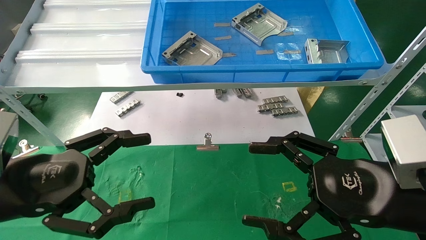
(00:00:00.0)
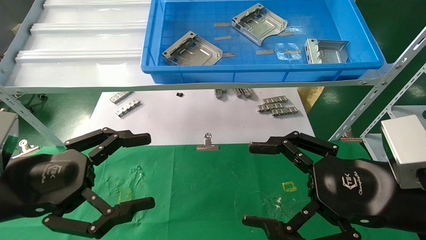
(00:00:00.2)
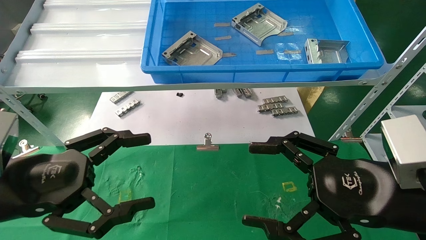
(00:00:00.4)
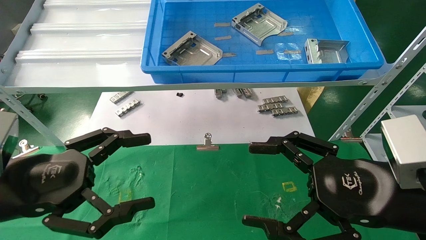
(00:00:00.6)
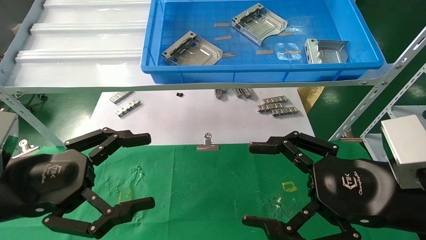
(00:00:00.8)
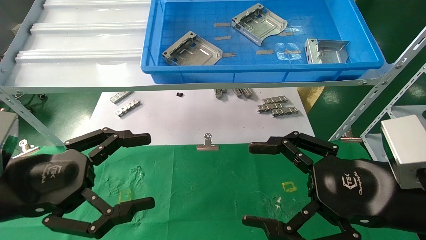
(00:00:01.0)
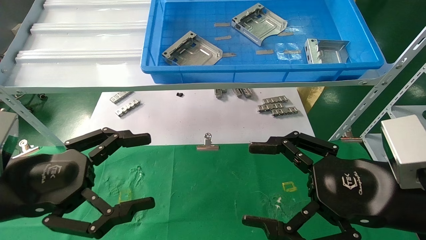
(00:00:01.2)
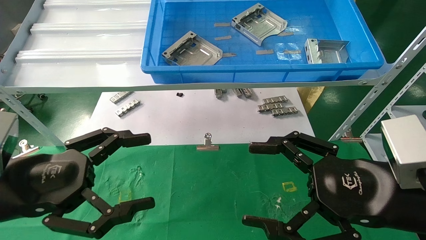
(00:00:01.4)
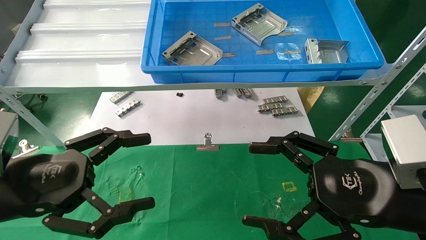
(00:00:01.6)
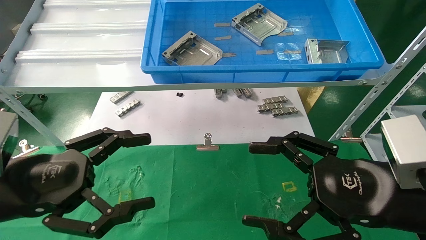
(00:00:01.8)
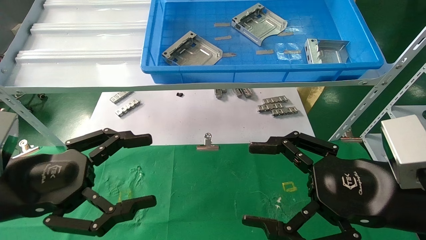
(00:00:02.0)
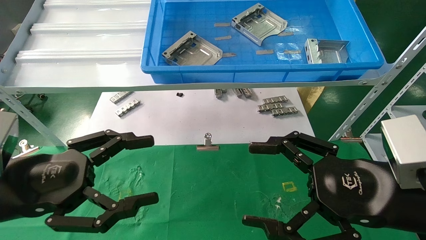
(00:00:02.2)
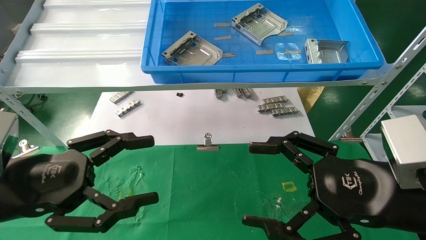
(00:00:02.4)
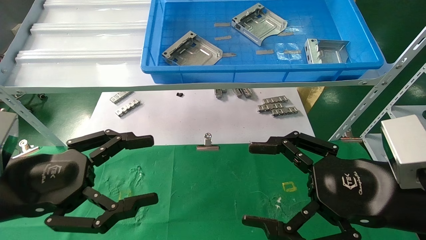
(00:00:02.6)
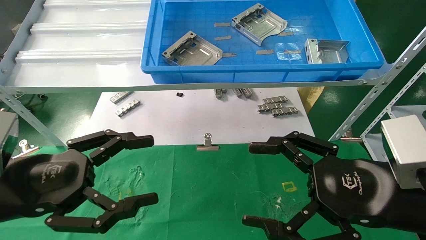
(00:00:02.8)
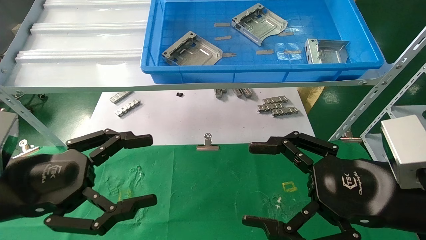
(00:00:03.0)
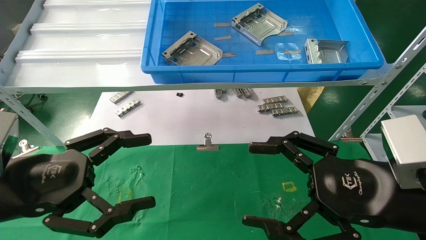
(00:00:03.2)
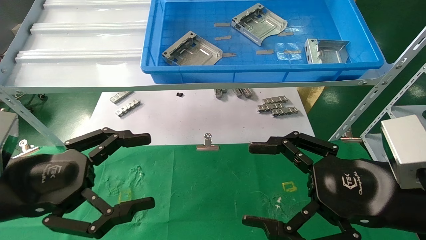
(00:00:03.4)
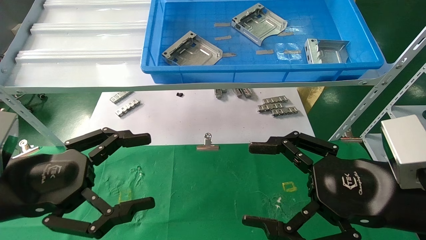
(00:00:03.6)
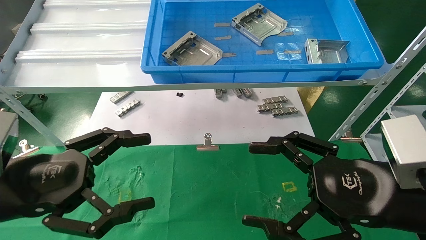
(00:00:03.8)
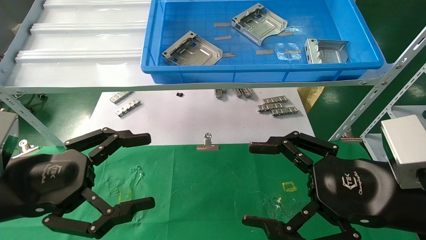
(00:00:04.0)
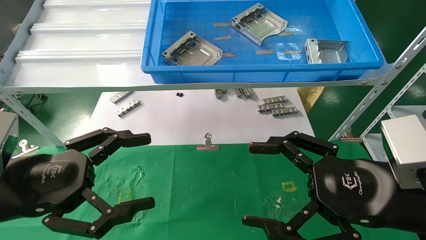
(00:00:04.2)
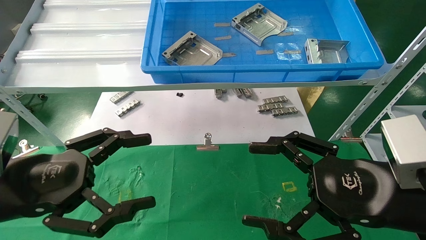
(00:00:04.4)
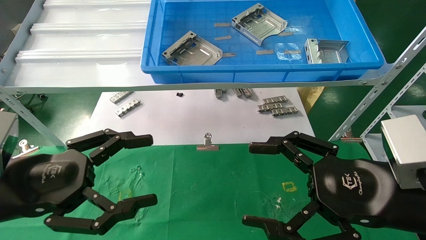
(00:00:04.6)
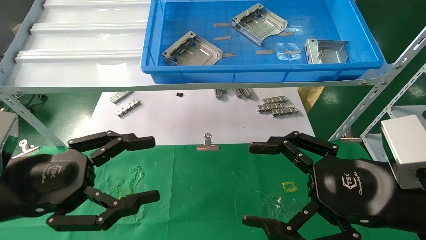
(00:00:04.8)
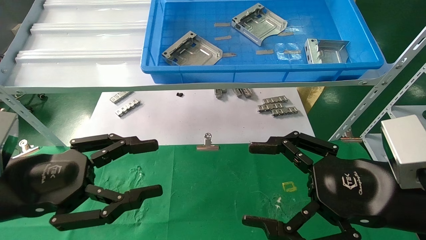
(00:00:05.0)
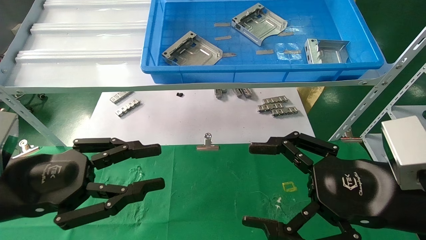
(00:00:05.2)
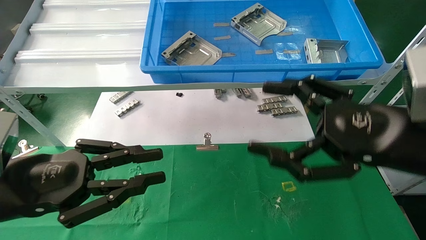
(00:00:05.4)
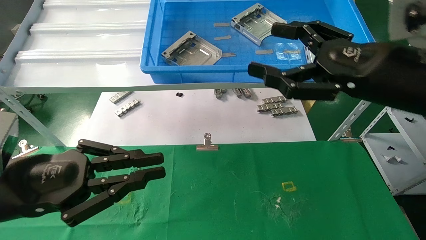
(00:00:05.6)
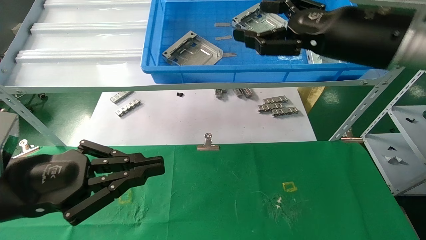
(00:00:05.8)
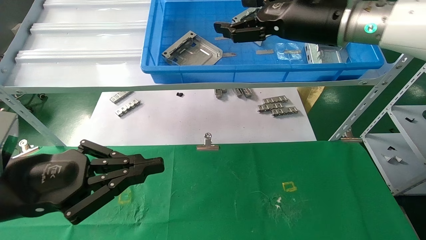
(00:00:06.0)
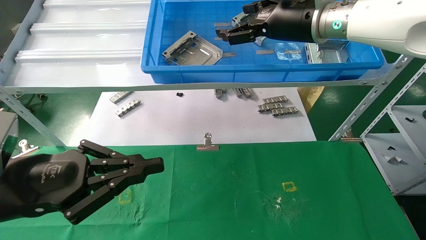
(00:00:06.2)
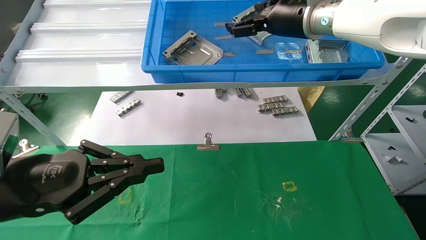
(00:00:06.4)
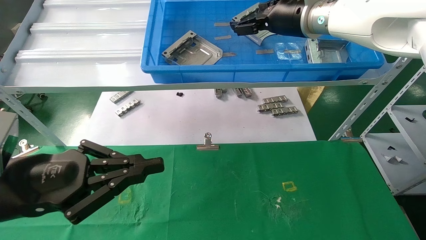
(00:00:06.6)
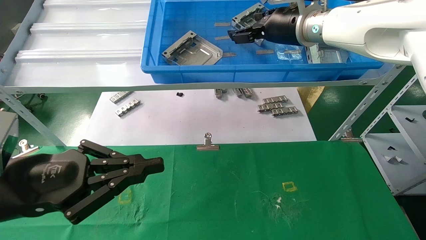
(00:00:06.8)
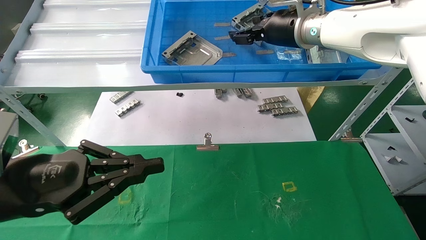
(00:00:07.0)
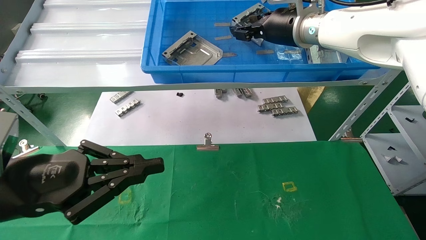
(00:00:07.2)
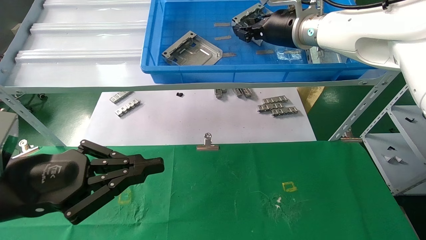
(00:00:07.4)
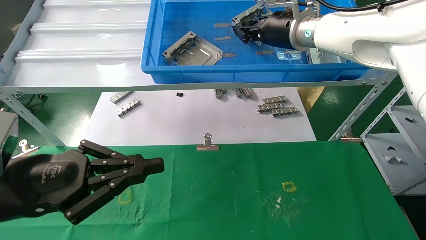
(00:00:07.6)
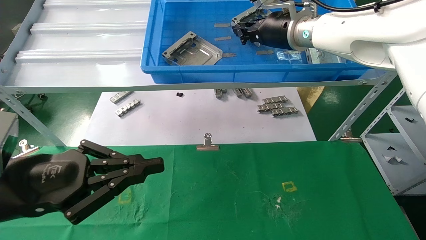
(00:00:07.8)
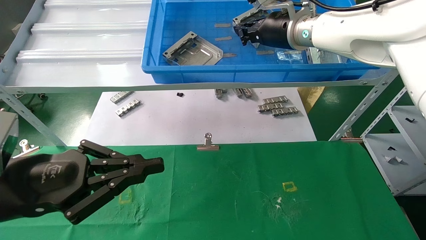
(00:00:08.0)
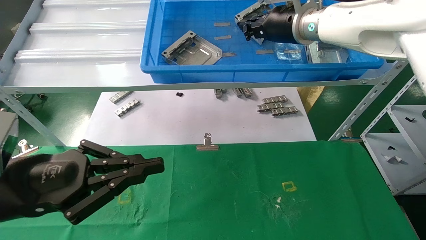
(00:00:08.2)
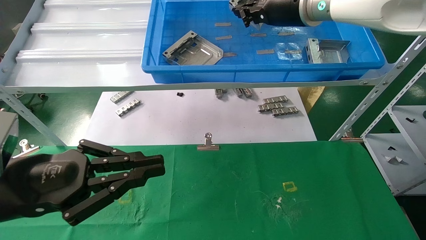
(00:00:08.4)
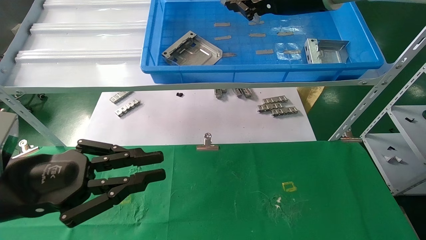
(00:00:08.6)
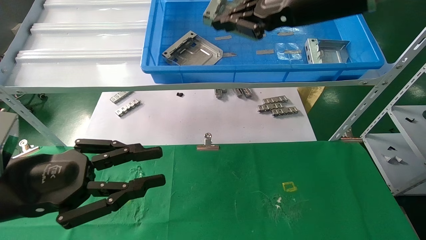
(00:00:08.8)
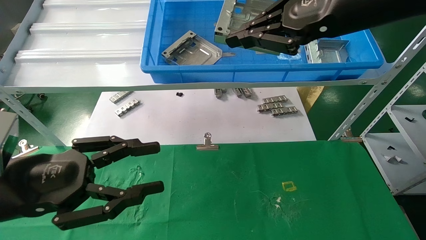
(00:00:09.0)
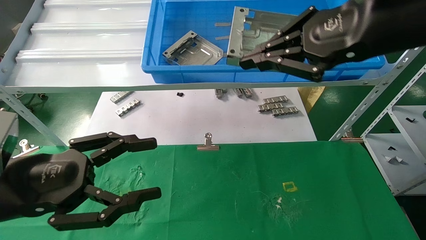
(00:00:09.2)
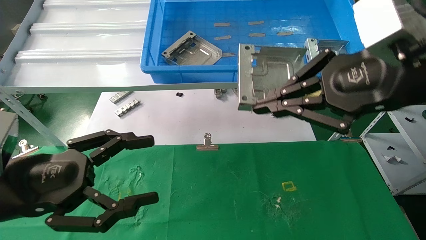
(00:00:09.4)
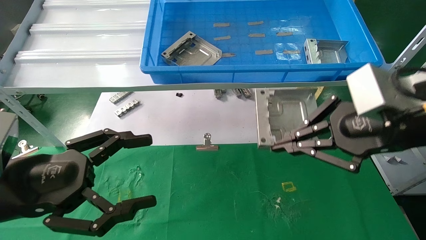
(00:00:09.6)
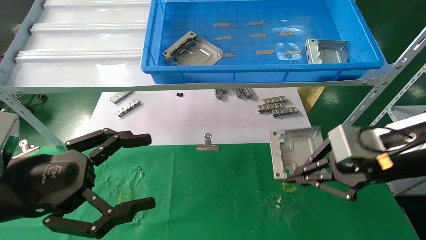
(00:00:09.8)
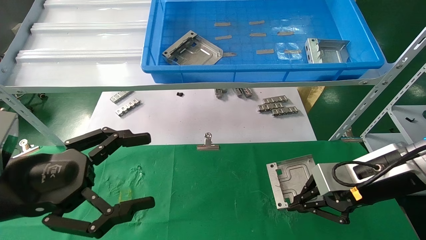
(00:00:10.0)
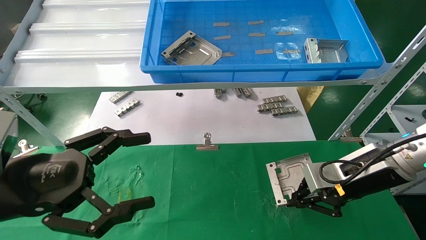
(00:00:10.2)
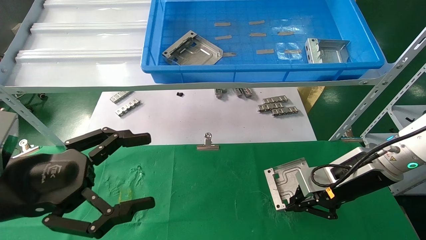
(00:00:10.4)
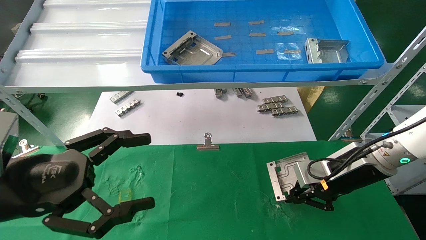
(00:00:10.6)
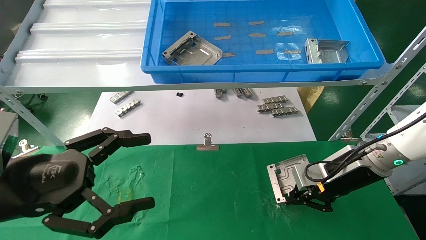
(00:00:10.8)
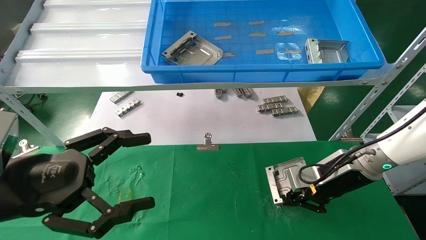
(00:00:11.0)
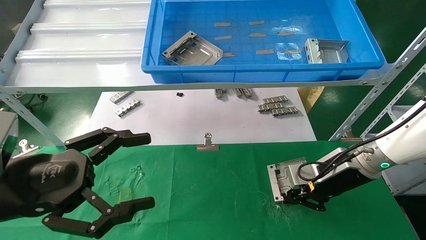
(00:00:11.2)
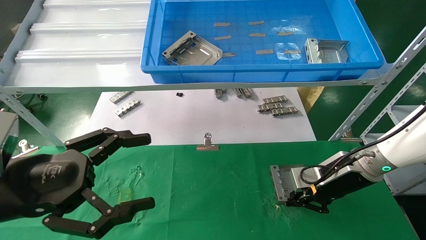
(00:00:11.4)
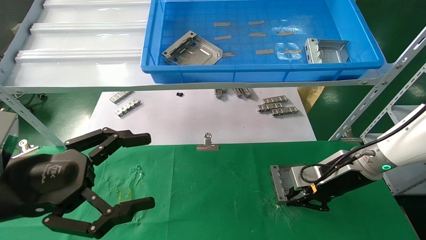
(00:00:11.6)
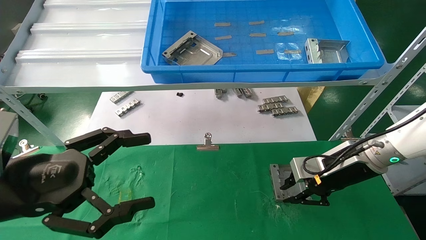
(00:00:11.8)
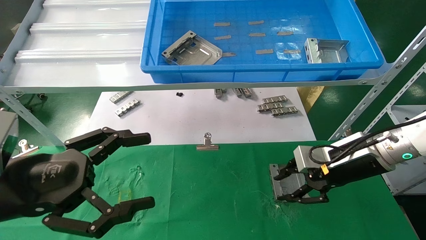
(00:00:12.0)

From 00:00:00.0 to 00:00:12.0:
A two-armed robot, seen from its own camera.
Task of the whole recording: use the mechanical arm to pick up the parts and place them on the table.
Step, from 00:00:05.4 to 00:00:08.0: Pick up the hard drive bracket from the feeding area.
Step, from 00:00:08.2 to 00:00:11.6: Place the hard drive bracket into the box.
From 00:00:00.0 to 00:00:04.4: Neither gripper changes place.
From 00:00:04.4 to 00:00:06.0: The left gripper closes its fingers; the right gripper heads upward and forward, covering approximately 25 cm.
From 00:00:06.0 to 00:00:07.6: The right gripper shifts some 10 cm forward, and closes its fingers.
From 00:00:07.6 to 00:00:09.0: The right gripper shifts approximately 20 cm backward, while the left gripper opens its fingers.
From 00:00:09.0 to 00:00:10.4: The left gripper opens, while the right gripper moves downward, roughly 25 cm.
From 00:00:10.4 to 00:00:12.0: The grippers make only small movements.

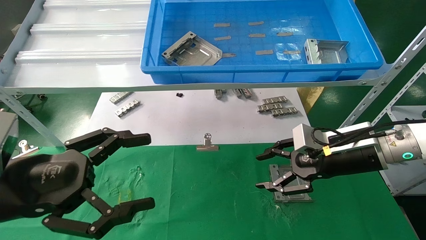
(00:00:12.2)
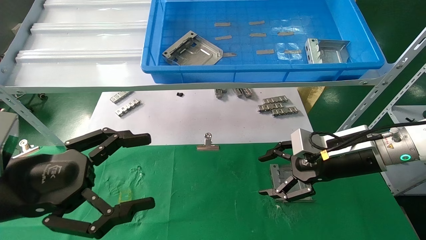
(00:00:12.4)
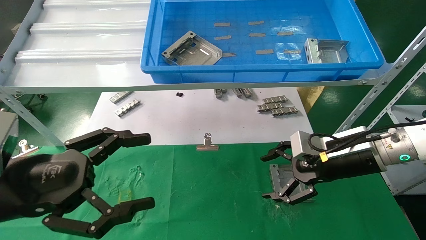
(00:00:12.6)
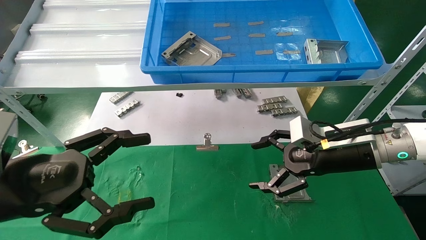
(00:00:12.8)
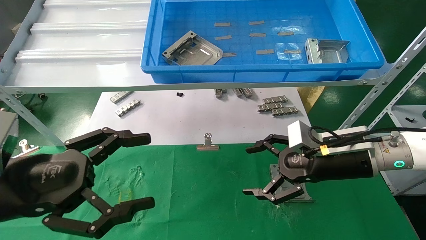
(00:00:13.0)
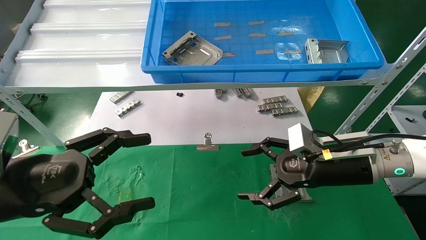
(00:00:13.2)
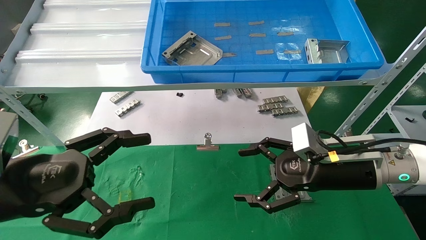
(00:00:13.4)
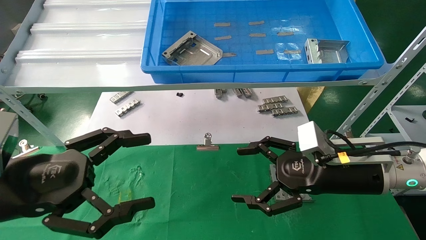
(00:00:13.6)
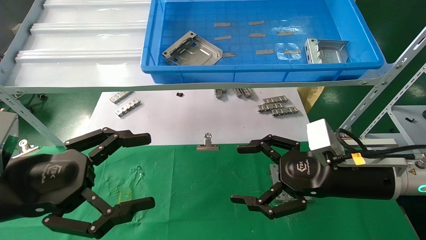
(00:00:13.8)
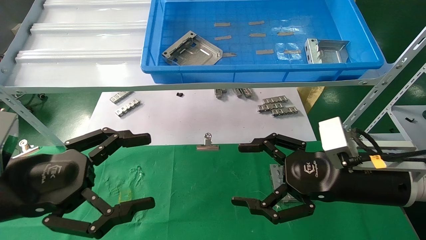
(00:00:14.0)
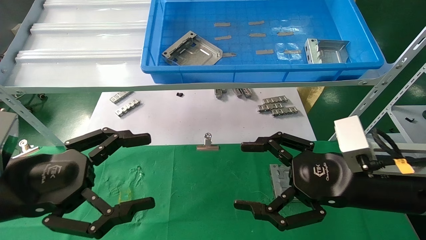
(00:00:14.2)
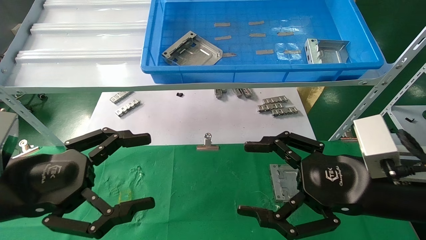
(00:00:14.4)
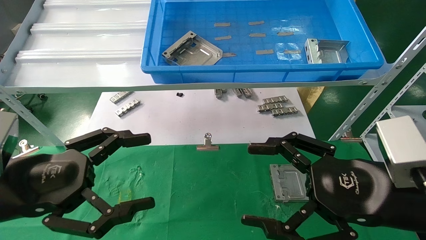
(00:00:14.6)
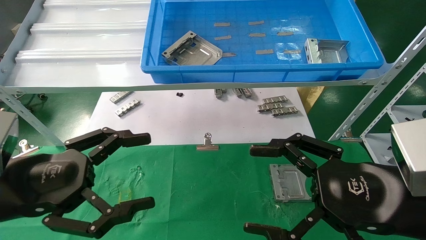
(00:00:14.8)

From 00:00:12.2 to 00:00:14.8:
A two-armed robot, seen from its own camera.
Task of the whole recording: use the mechanical arm to pick up the parts and place them on the table.
From 00:00:12.2 to 00:00:13.4: The right gripper opens.
From 00:00:13.4 to 00:00:14.8: The right gripper heads backward, covering about 10 cm.
